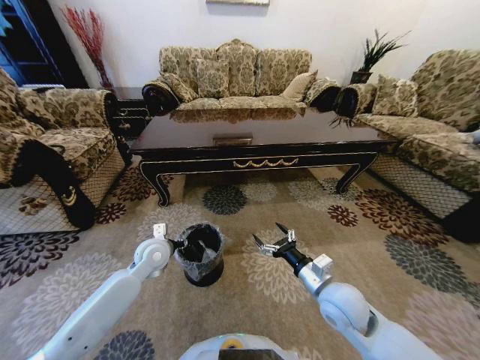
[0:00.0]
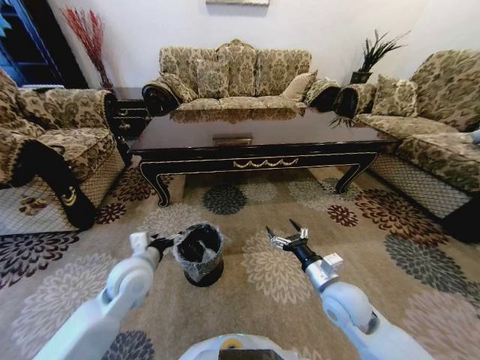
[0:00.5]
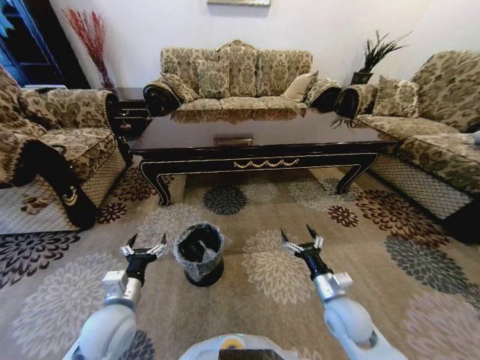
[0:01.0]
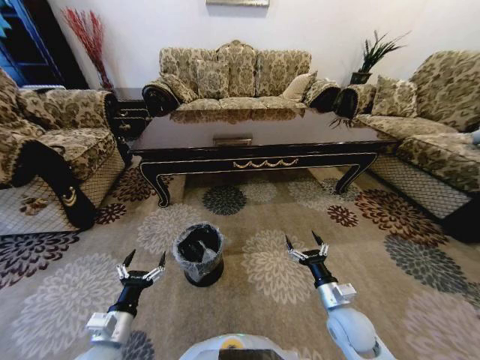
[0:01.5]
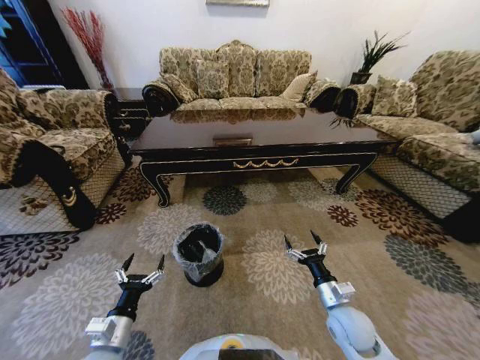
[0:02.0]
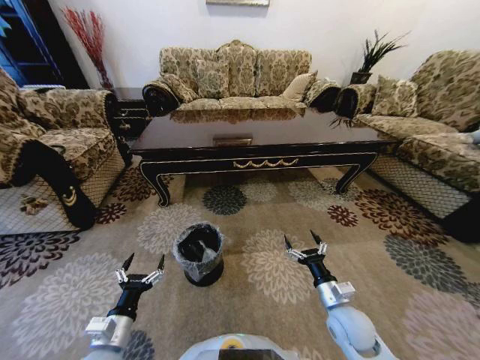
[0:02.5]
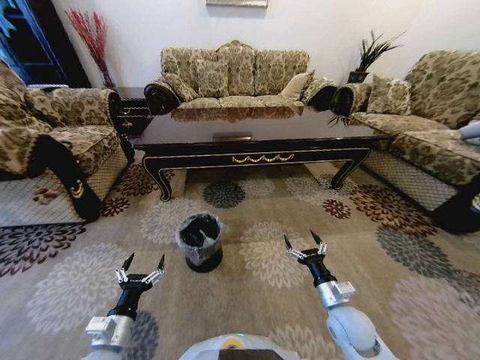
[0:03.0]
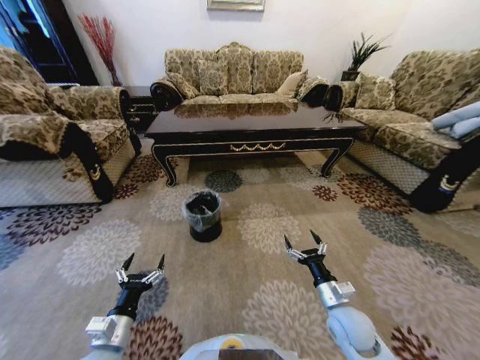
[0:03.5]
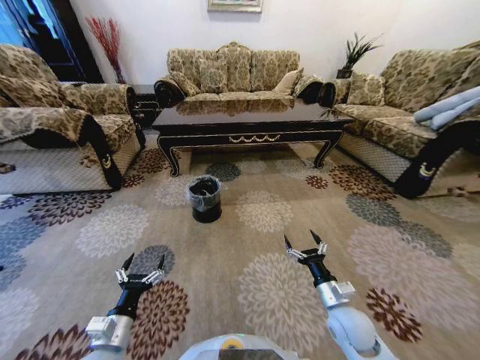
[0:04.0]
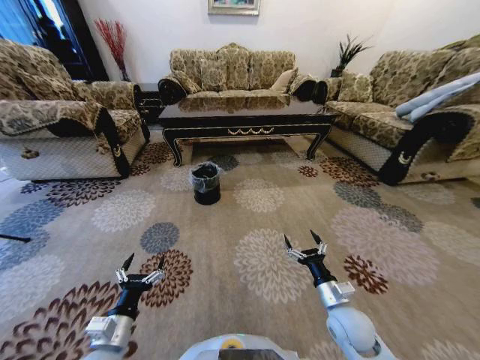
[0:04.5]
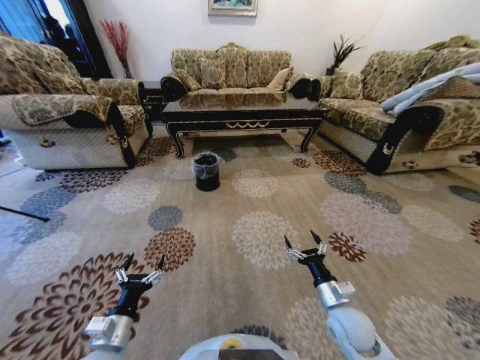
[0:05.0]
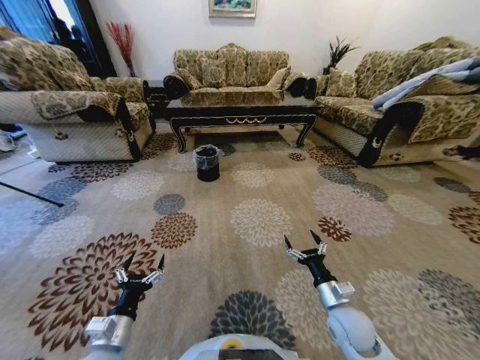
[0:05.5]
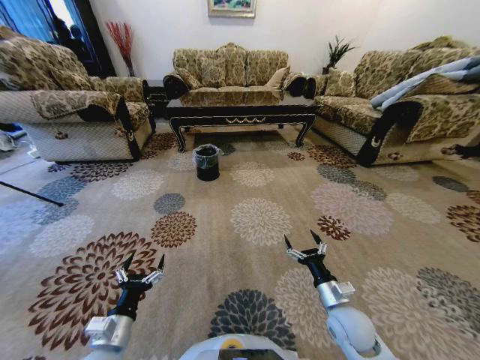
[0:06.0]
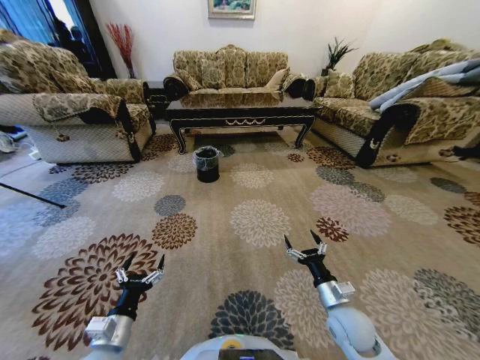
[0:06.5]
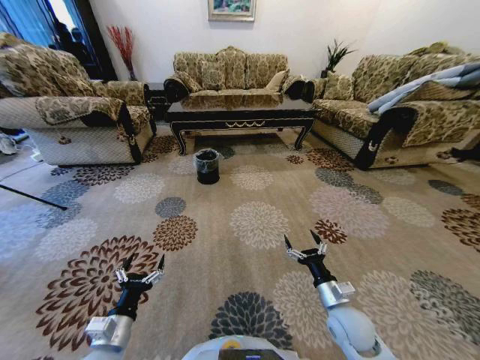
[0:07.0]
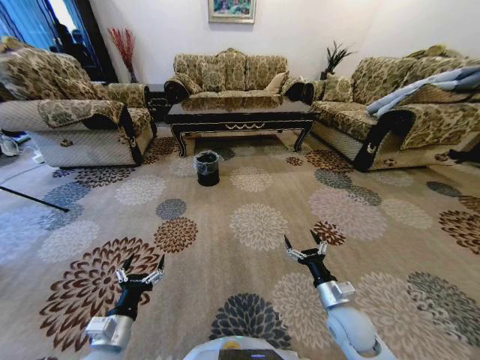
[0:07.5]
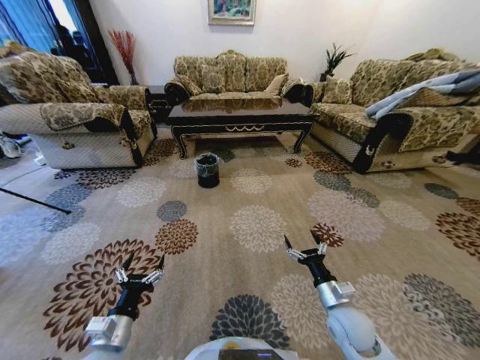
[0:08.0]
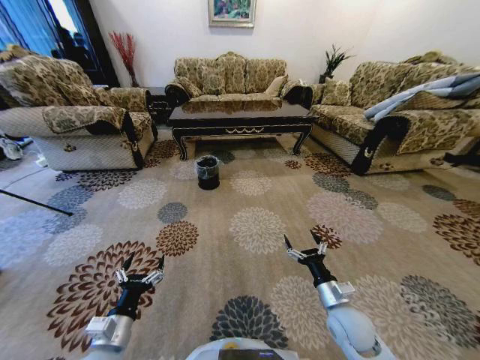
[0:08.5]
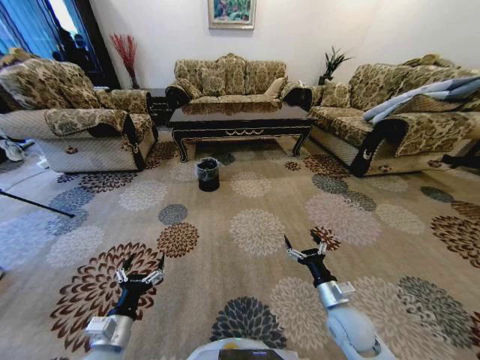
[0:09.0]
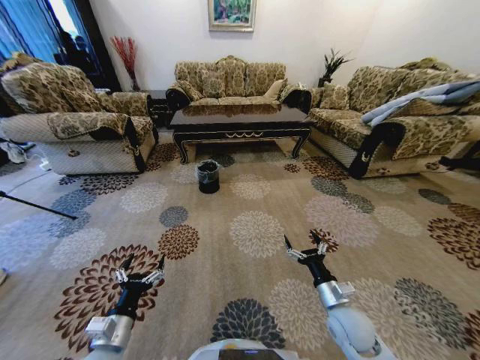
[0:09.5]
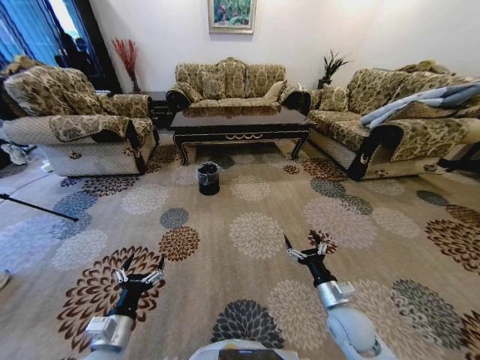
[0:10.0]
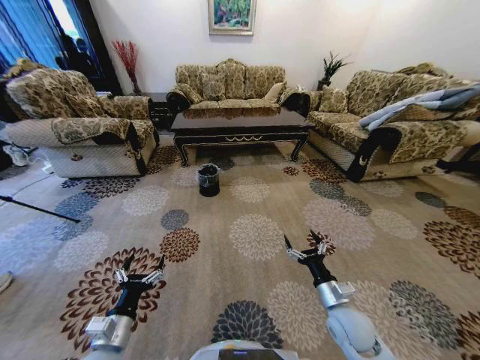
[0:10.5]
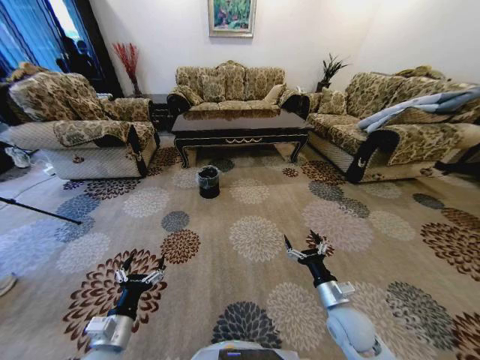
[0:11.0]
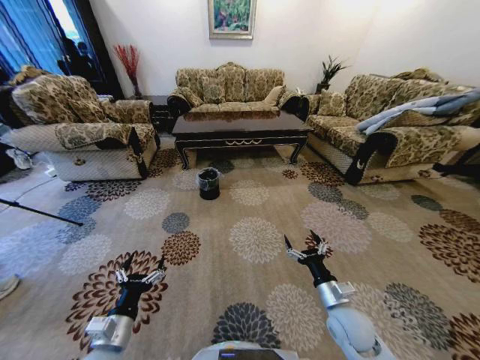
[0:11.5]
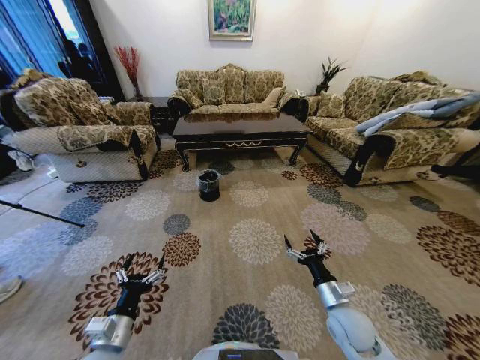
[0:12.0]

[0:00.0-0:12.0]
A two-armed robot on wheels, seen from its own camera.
Task of the whole recording: Move to the front of the table and pick up the trash from the floor, then place it into the trash bin.
0:00.0 to 0:02.0: The left gripper is displaced backward by about 25 cm, and opens; the right gripper shifts some 10 cm downward.

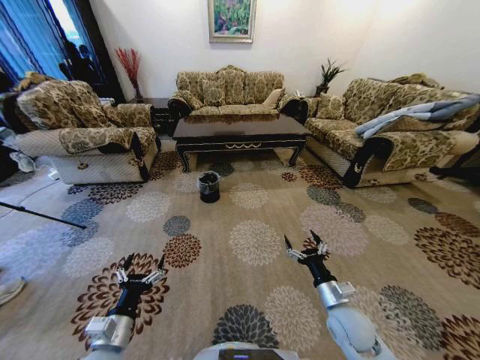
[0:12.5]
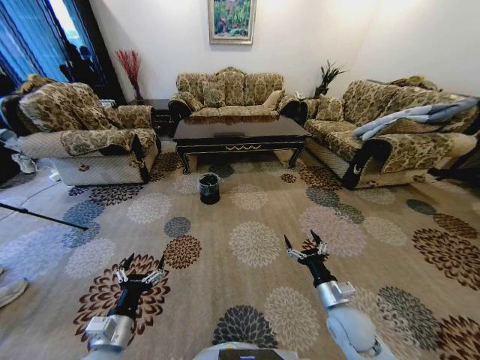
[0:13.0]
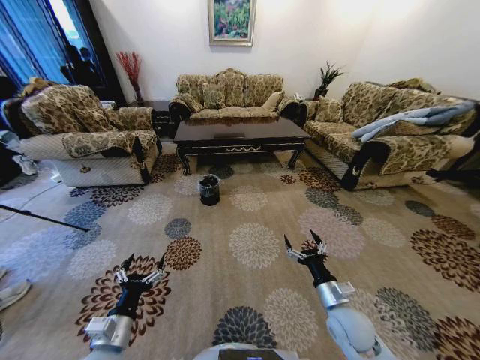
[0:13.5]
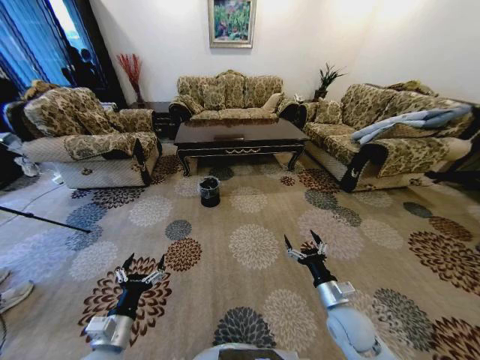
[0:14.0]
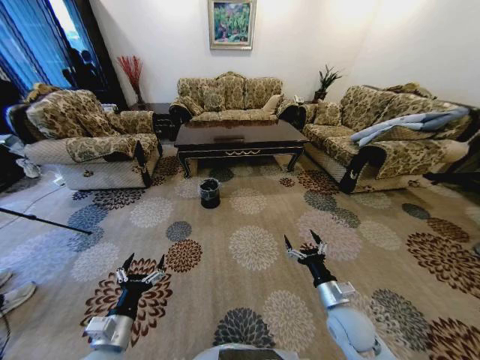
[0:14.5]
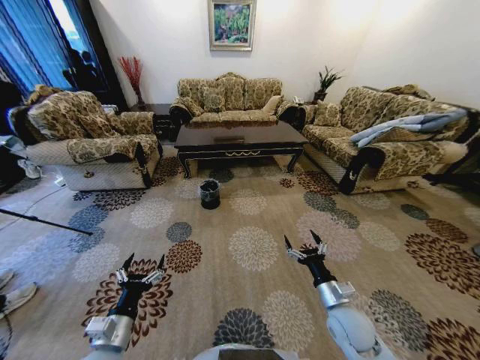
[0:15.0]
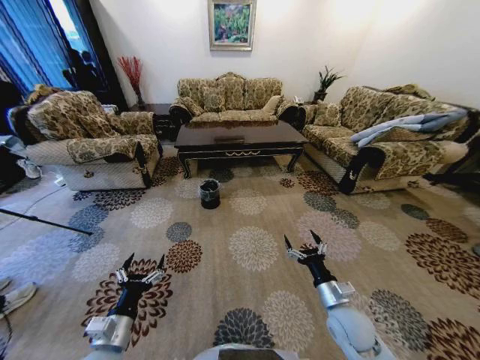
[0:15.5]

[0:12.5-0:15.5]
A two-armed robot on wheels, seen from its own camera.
Task of the whole recording: Move to the front of the table and pick up the trash from the floor, then place it into the trash bin.
0:14.0 to 0:15.5: Both grippers stay about where they are.
